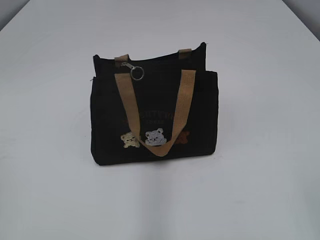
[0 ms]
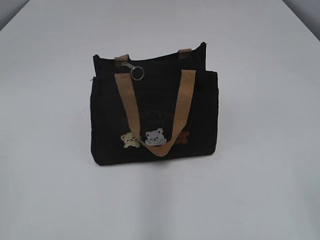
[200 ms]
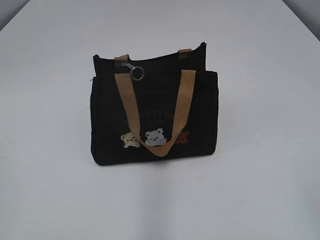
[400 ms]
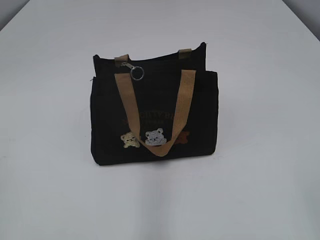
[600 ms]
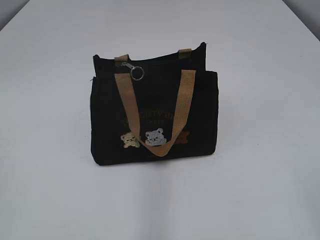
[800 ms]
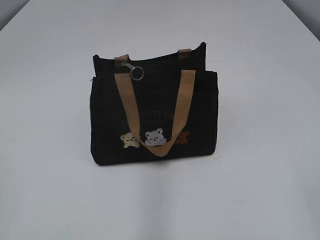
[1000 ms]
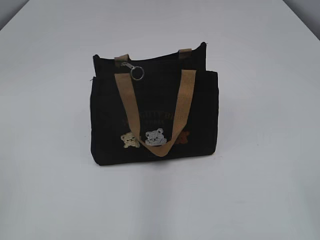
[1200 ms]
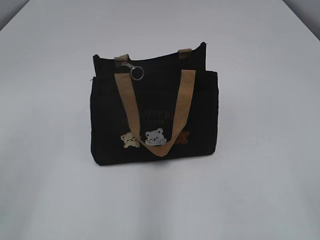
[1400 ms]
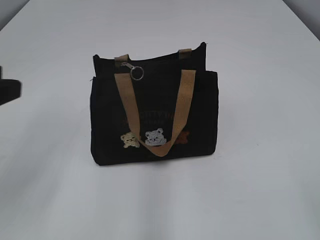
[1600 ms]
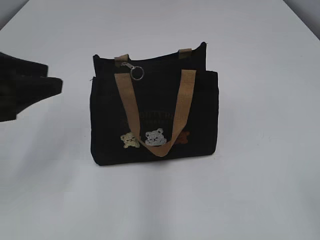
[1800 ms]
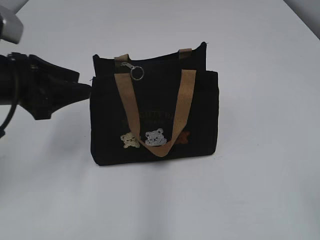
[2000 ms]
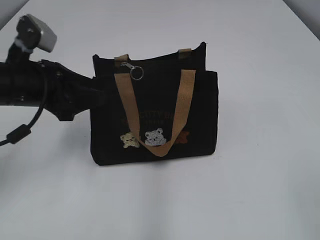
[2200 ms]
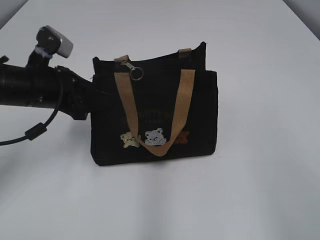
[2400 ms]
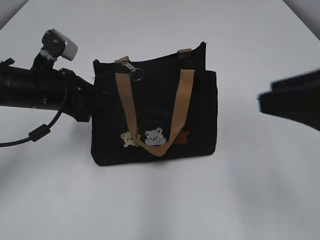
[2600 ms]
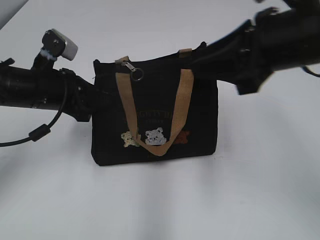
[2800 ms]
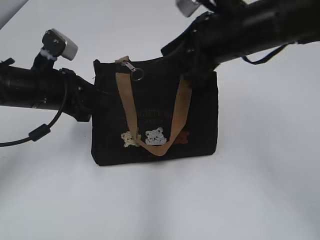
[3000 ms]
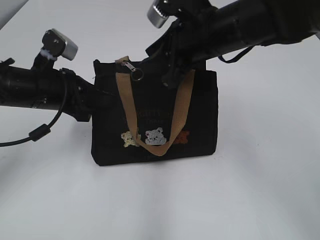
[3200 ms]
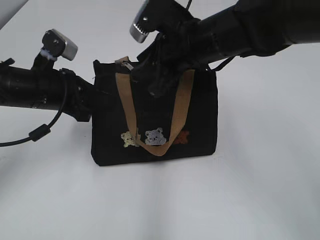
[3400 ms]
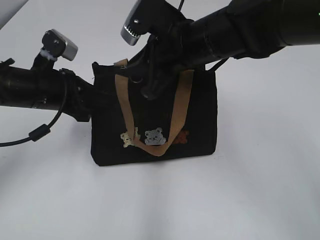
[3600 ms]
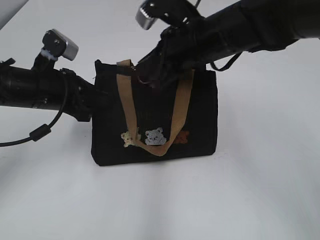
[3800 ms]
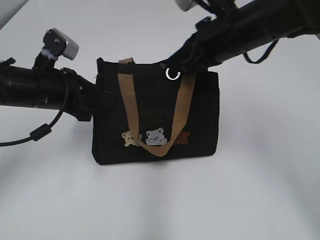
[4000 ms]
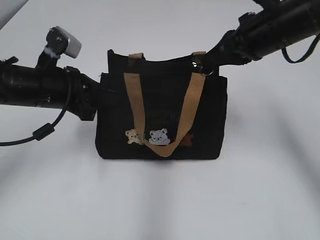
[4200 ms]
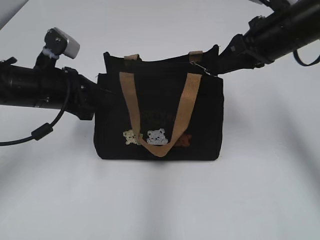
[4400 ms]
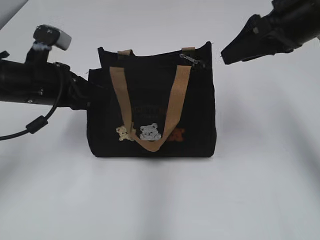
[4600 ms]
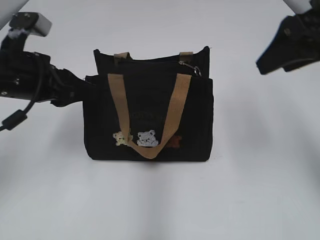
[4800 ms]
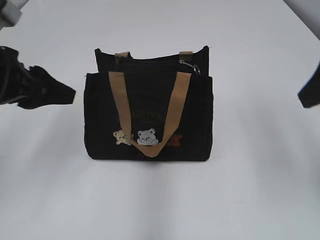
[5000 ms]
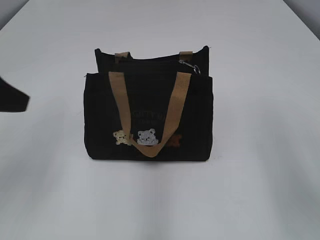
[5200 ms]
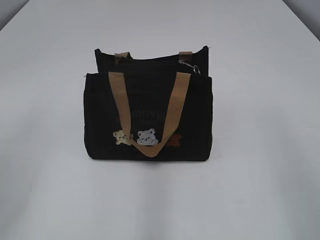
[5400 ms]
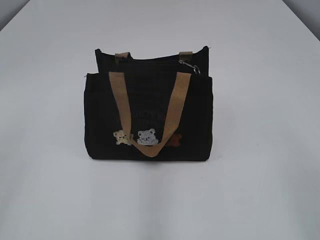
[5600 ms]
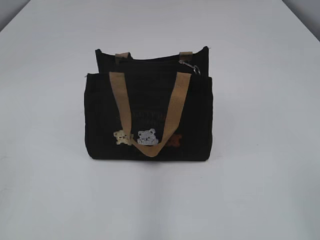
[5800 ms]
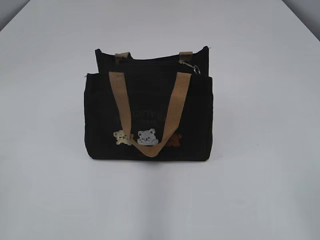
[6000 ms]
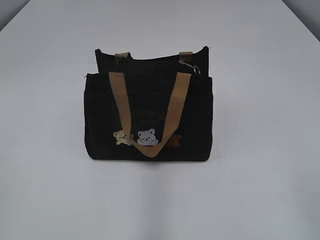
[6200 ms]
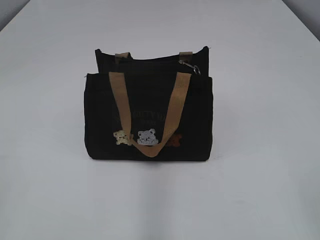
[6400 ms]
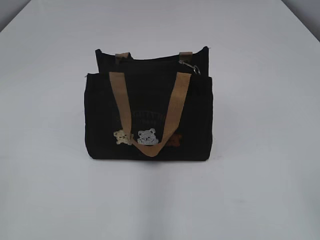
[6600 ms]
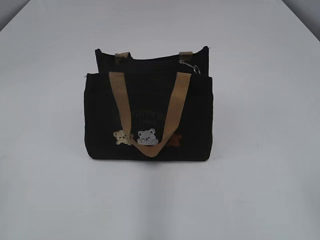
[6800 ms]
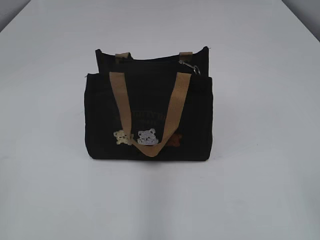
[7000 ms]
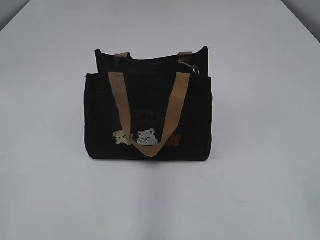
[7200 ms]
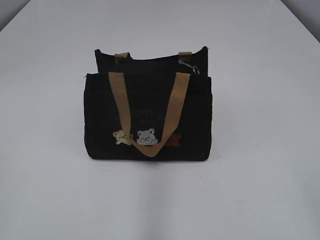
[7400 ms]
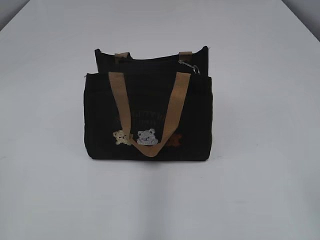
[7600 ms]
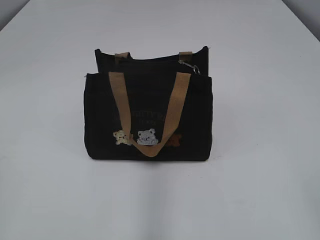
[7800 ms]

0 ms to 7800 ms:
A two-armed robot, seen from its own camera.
Step, 0 ms to 4400 ms: Pull open the zipper with your right hand.
Step, 4600 ms to 4800 ms: Hold the bag with your left hand.
1600 ms to 3200 ms: The left gripper moves forward, downward and to the right, about 20 cm, and closes its fingers, while the right gripper is displaced forward and to the left by about 40 cm.
3200 ms to 4600 ms: The right gripper travels to the right by approximately 10 cm, and opens its fingers.
4600 ms to 6200 ms: The two grippers go roughly 30 cm backward. The left gripper opens.

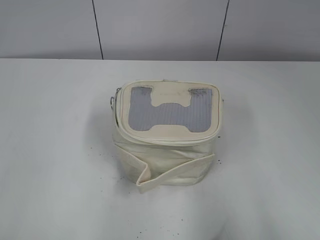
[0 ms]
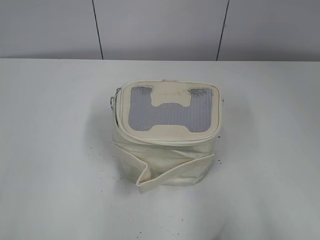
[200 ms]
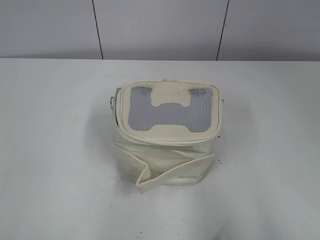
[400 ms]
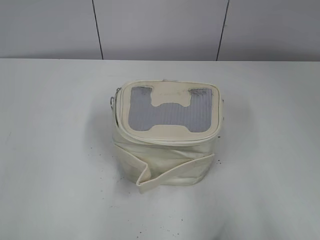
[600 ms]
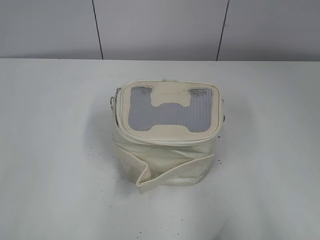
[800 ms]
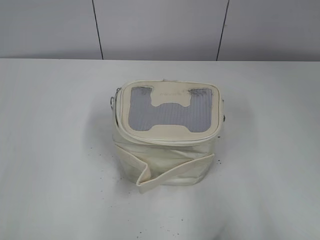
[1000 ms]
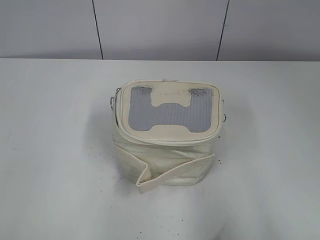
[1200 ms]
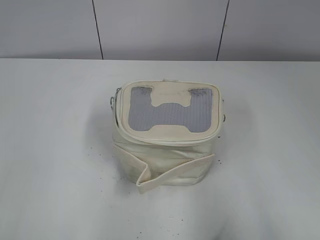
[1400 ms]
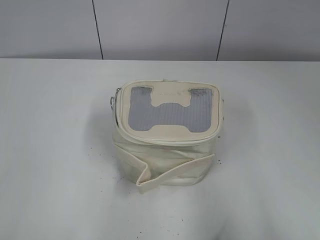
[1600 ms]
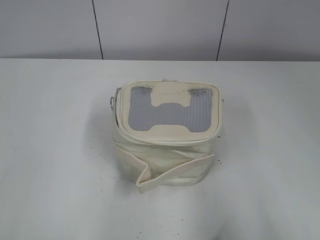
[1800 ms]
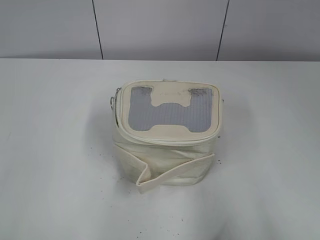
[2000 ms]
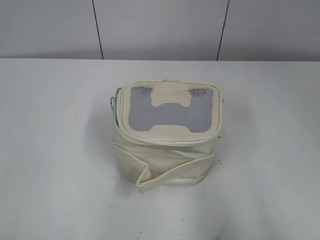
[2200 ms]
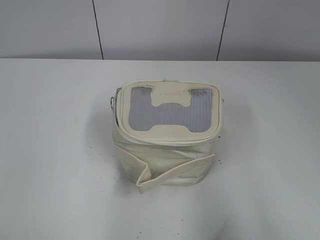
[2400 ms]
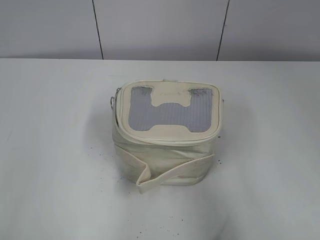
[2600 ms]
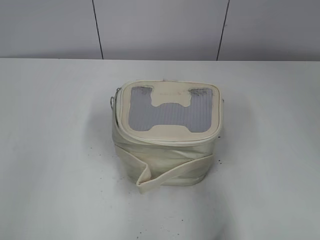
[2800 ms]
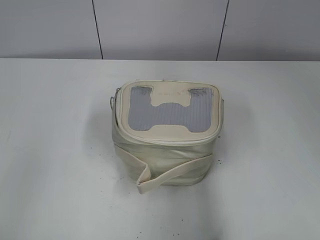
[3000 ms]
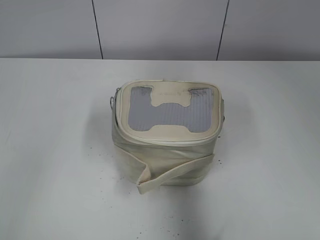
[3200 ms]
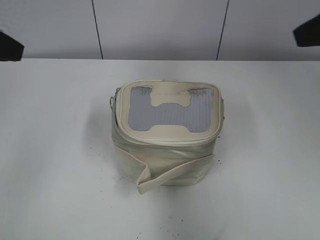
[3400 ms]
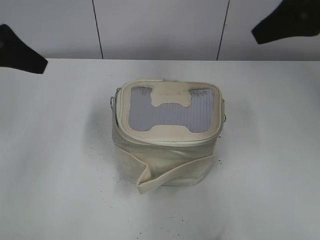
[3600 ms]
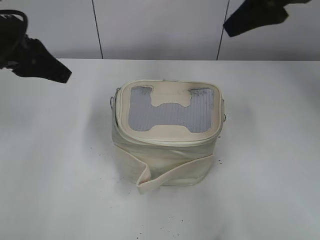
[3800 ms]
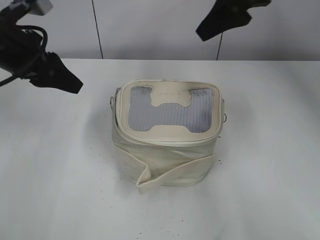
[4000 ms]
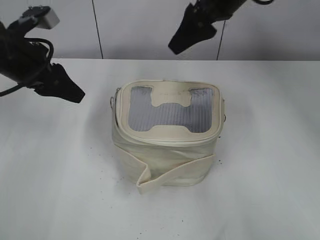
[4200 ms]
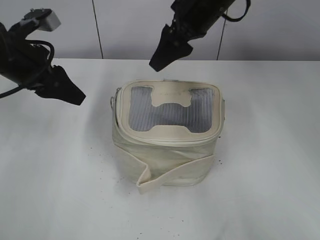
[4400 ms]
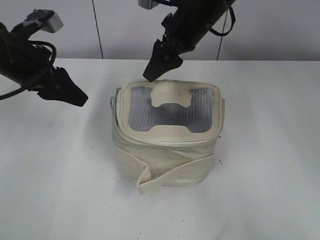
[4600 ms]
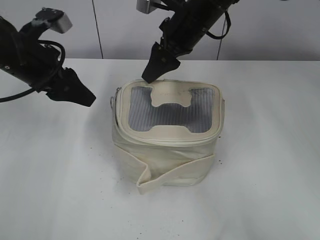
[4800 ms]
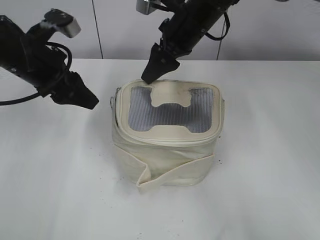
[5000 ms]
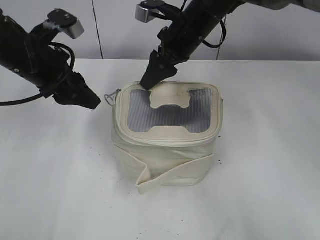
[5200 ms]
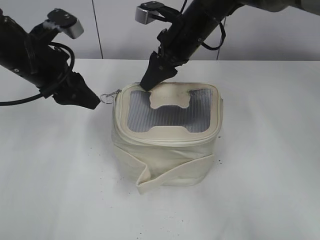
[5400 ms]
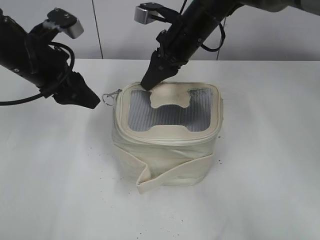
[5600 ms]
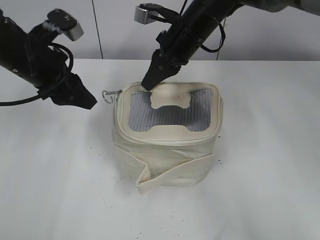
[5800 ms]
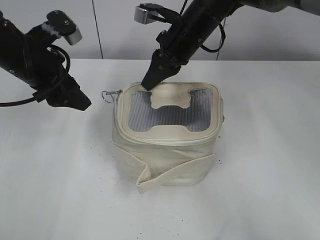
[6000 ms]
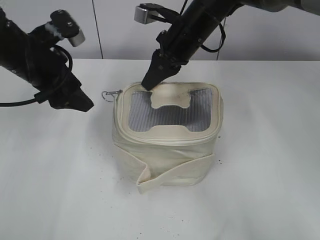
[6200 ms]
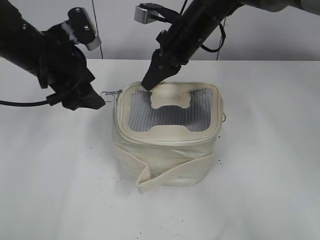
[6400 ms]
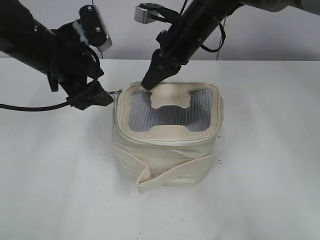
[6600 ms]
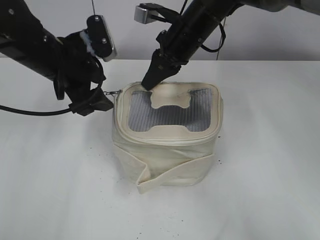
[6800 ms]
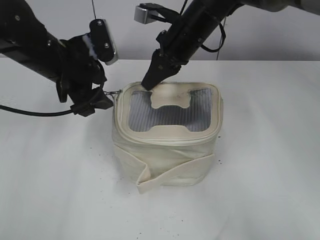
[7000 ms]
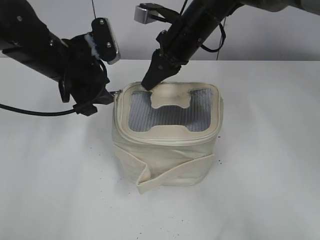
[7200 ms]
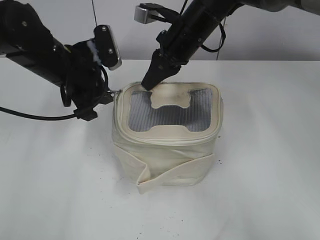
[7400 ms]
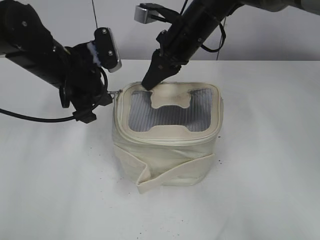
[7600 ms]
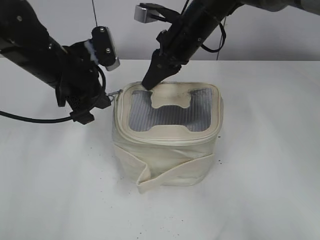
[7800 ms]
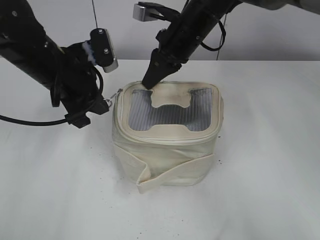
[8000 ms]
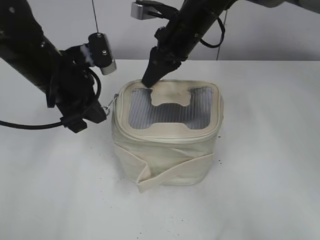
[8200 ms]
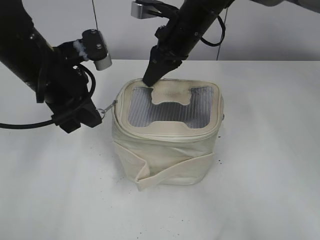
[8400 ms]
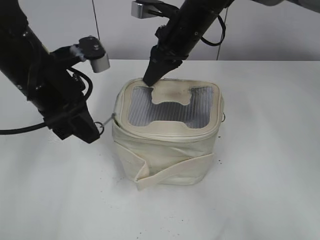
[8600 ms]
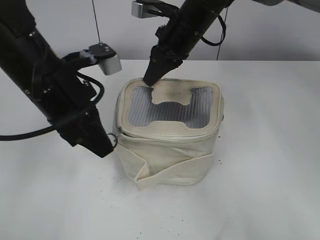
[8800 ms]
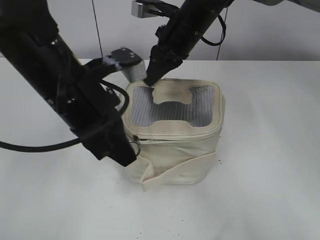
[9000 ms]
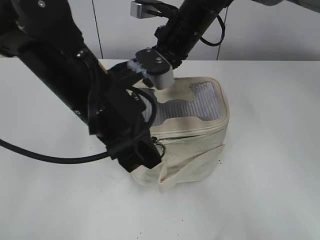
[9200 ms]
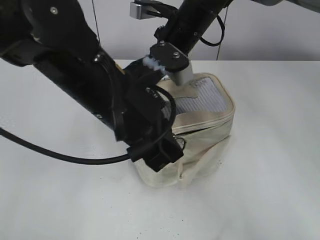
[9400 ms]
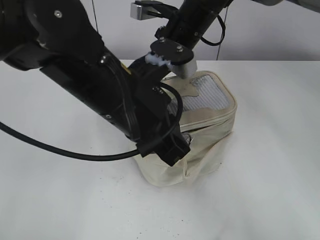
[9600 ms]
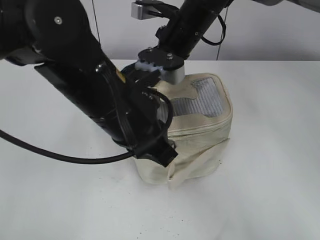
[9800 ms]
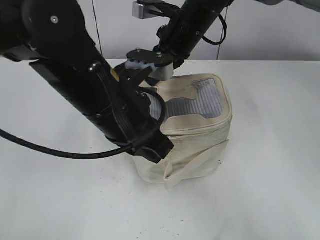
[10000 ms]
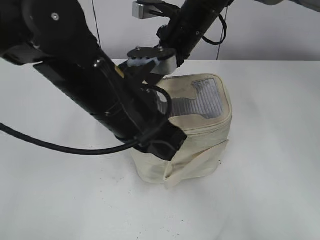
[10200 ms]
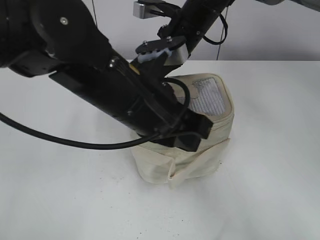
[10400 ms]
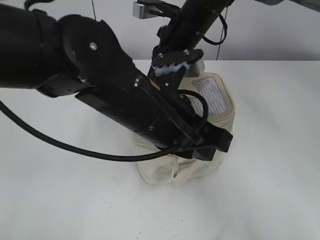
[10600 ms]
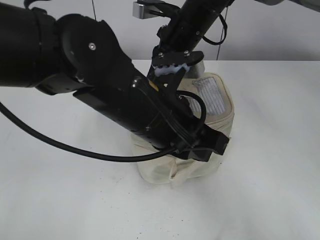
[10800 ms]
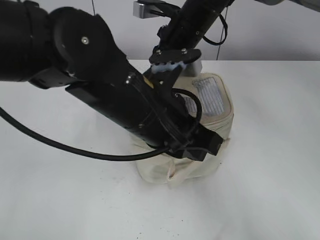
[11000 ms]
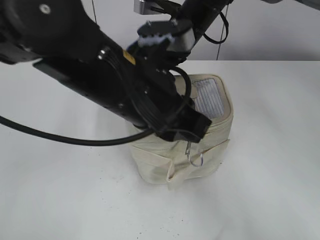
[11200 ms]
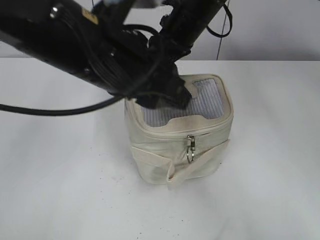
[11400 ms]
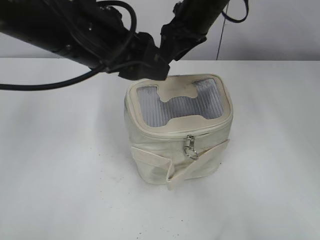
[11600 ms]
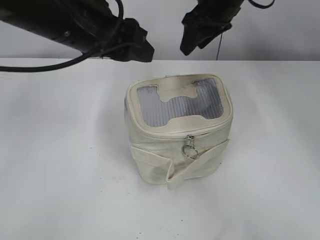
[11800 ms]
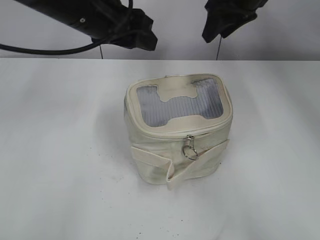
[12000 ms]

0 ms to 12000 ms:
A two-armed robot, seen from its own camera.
Step, 0 ms to 11000 ms: Zip up the bag with your left hand.
Step, 11200 ms to 11400 ms: Hold the bag with your right hand.
1600 ms to 3000 ms: The grippers both shift forward and upward by roughly 15 cm.
3000 ms to 4400 ms: The left gripper moves forward and downward, roughly 25 cm. Meanwhile the right gripper travels forward and to the left by roughly 35 cm.
4400 ms to 6000 ms: The right gripper moves downward, approximately 5 cm, and closes.
6000 ms to 7600 ms: The left gripper shifts roughly 5 cm to the right, and closes its fingers.
7600 ms to 9000 ms: The left gripper goes roughly 10 cm backward.
9000 ms to 10400 ms: The left gripper is displaced to the right by approximately 5 cm.
10400 ms to 12000 ms: The left gripper heads forward, to the left and upward, covering approximately 15 cm, and opens up, while the right gripper shifts roughly 10 cm to the right and upward, and opens.

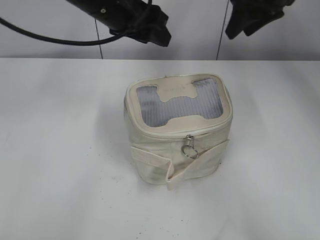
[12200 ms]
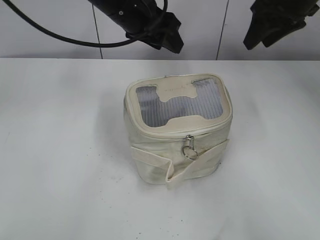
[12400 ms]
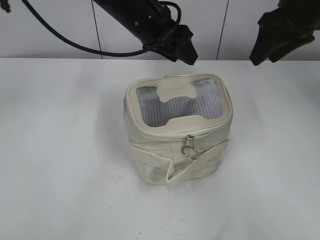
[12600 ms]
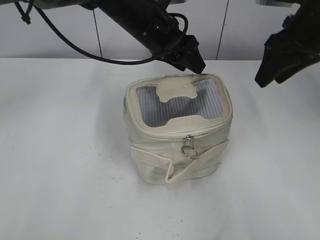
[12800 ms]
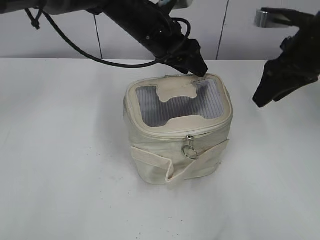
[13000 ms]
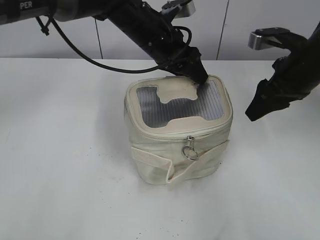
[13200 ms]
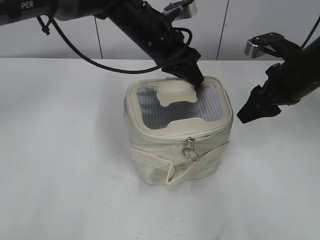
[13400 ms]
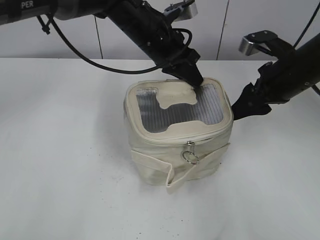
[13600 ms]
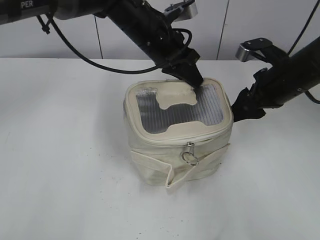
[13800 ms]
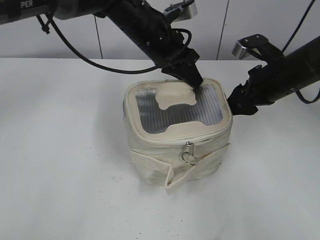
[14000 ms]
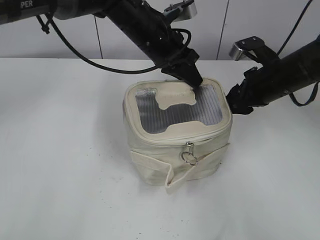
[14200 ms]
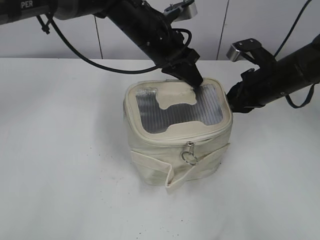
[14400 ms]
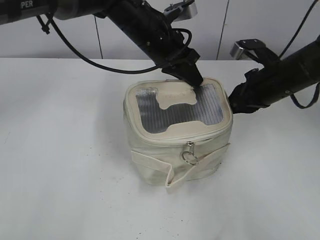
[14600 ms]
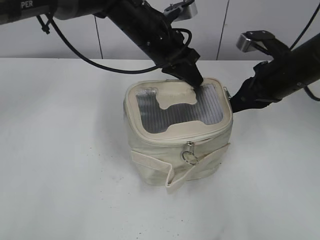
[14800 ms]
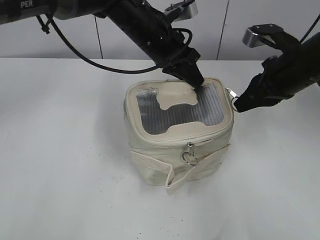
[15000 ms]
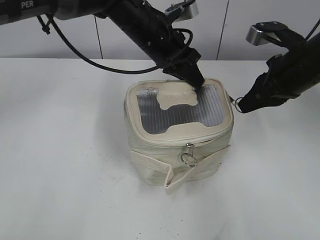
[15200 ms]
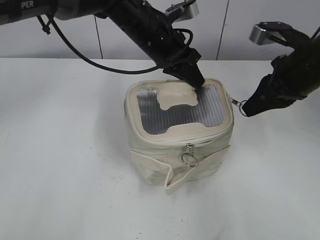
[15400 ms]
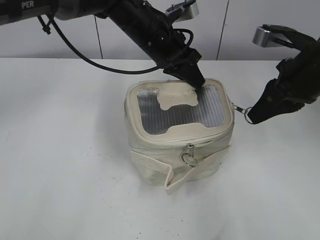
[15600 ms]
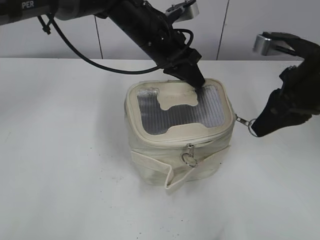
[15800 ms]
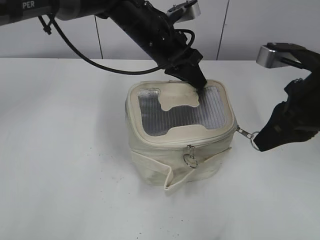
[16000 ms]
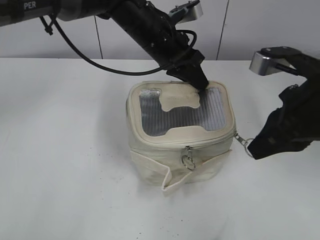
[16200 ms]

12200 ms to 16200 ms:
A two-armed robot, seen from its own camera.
12200 ms to 13600 ms: The left gripper heads downward, to the right and forward, covering roughly 10 cm, and closes up; the right gripper is displaced backward and downward by some 15 cm.
13600 ms to 14800 ms: The right gripper closes its fingers.
14800 ms to 16200 ms: The right gripper goes about 15 cm backward and upward.
